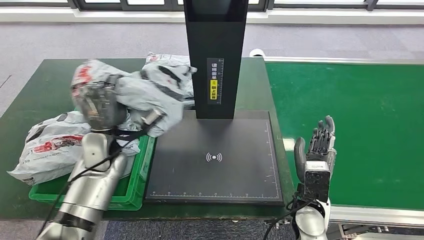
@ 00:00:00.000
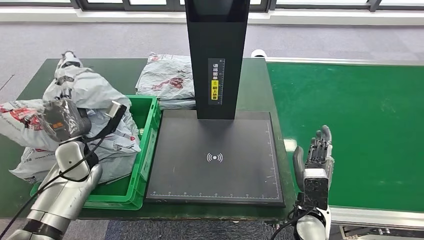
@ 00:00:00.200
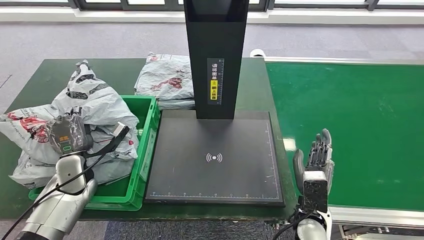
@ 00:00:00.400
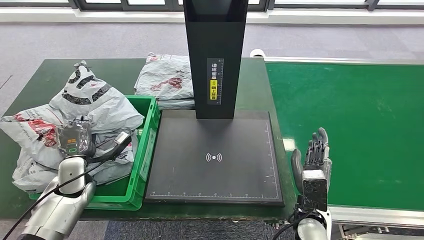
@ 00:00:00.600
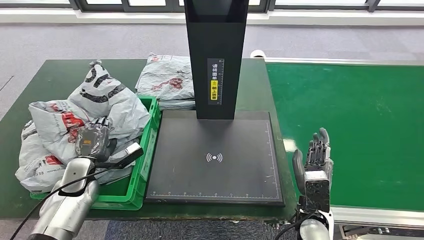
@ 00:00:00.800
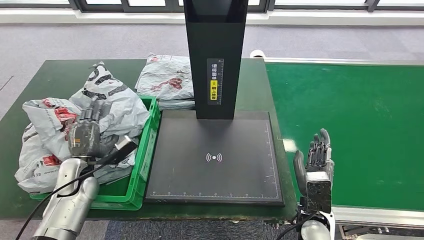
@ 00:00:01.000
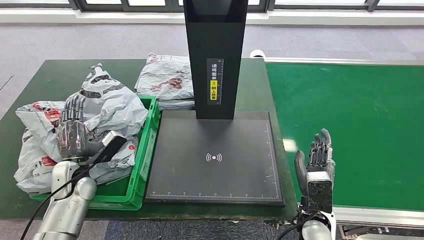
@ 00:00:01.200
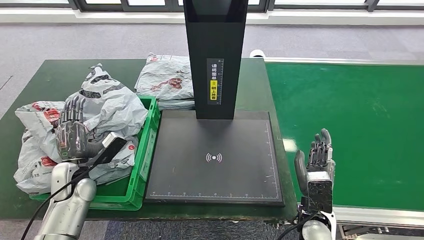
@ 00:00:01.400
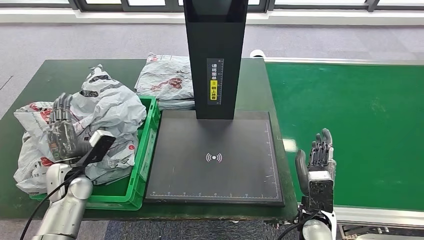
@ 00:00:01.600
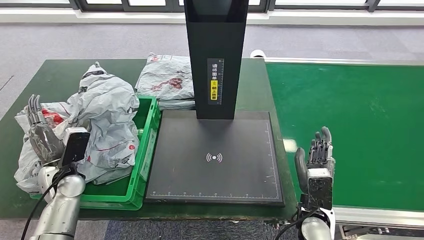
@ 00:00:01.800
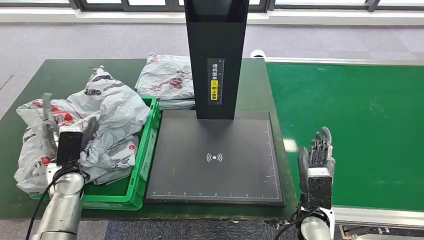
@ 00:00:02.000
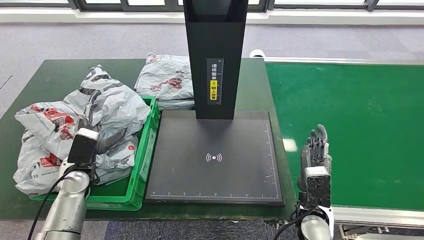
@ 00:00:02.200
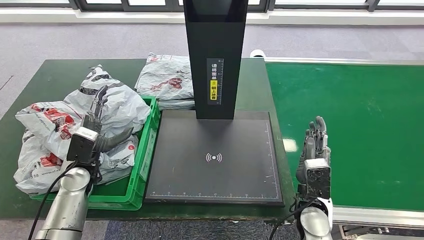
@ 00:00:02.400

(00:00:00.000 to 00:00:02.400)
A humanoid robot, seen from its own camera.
Step, 00:00:00.000 - 00:00:02.400: Place the parcel into the delivery box.
